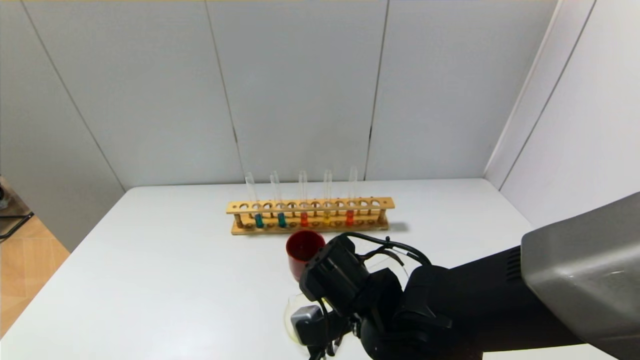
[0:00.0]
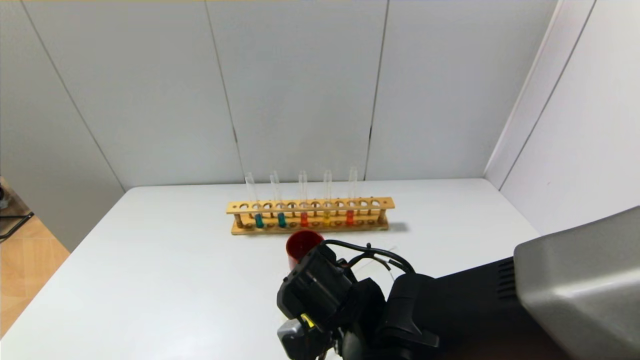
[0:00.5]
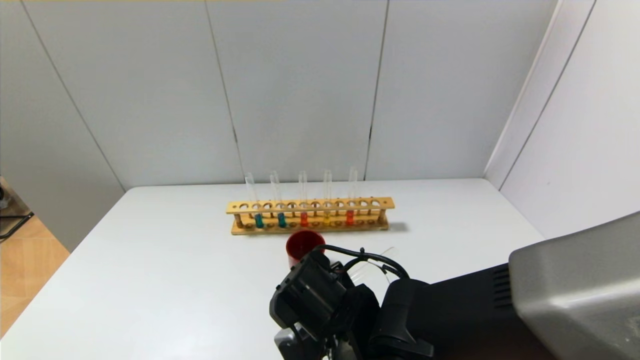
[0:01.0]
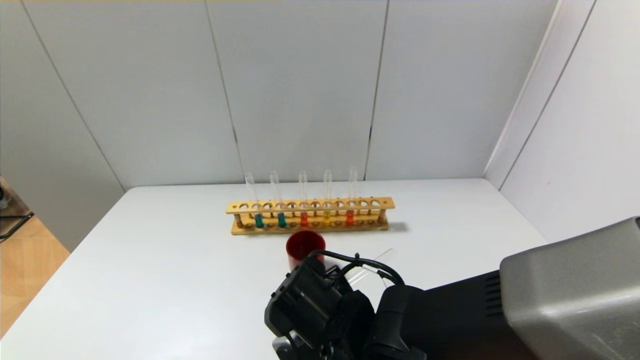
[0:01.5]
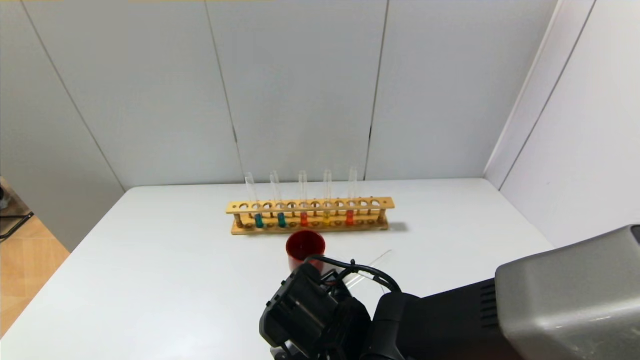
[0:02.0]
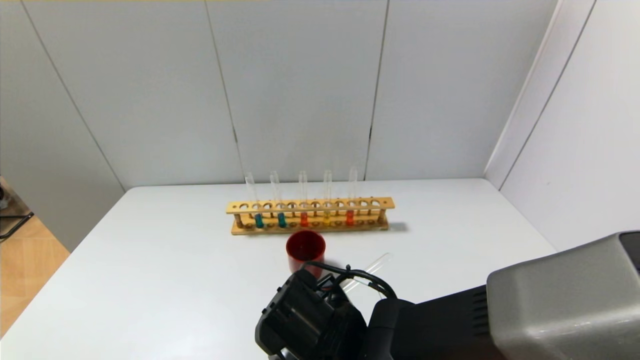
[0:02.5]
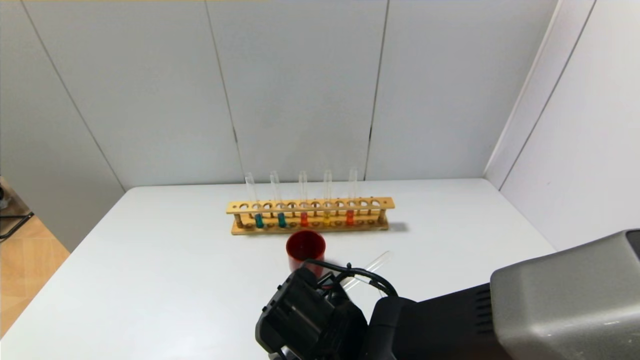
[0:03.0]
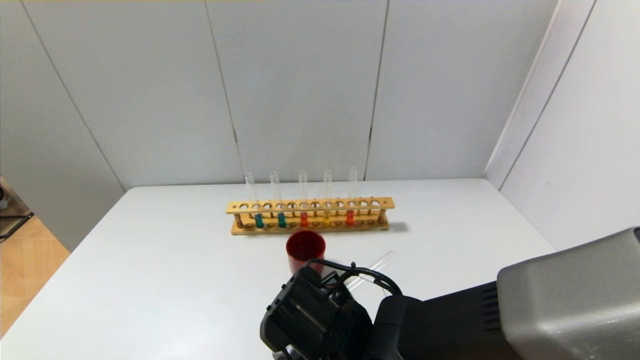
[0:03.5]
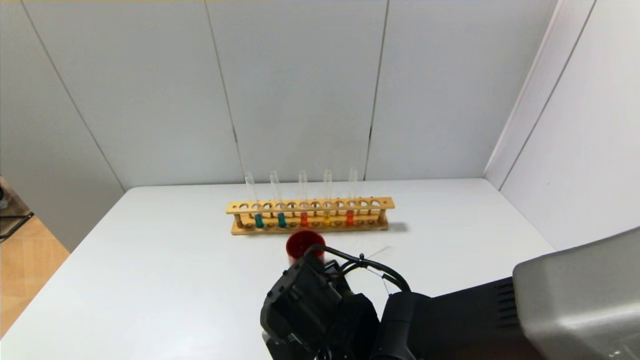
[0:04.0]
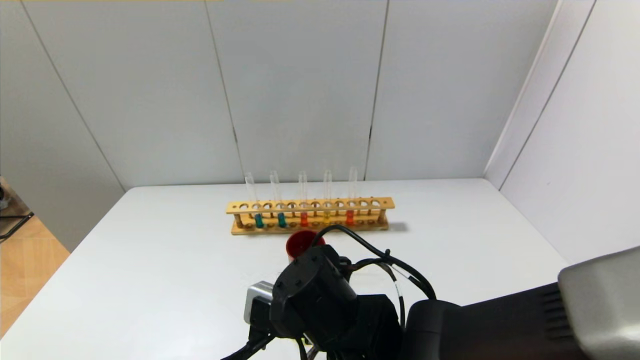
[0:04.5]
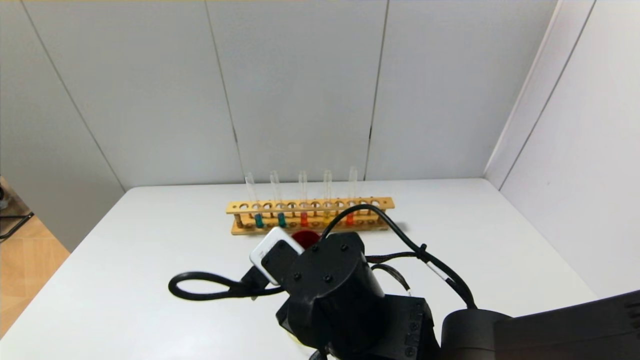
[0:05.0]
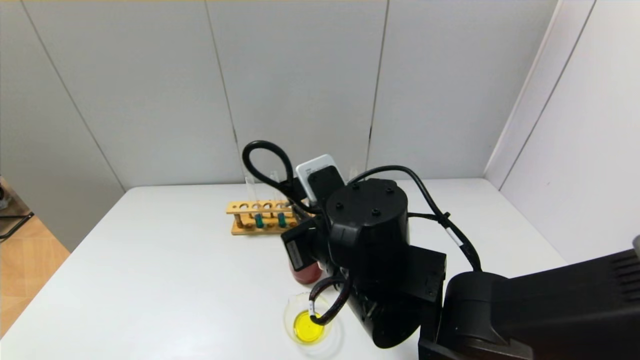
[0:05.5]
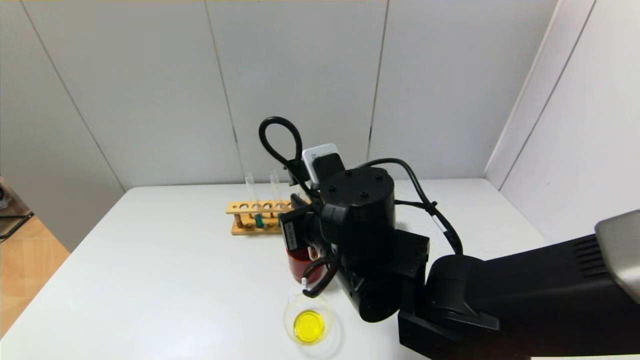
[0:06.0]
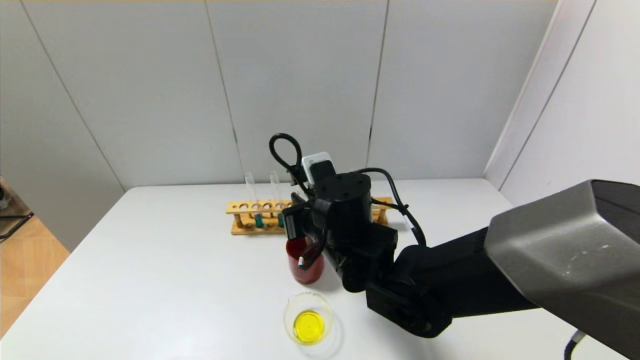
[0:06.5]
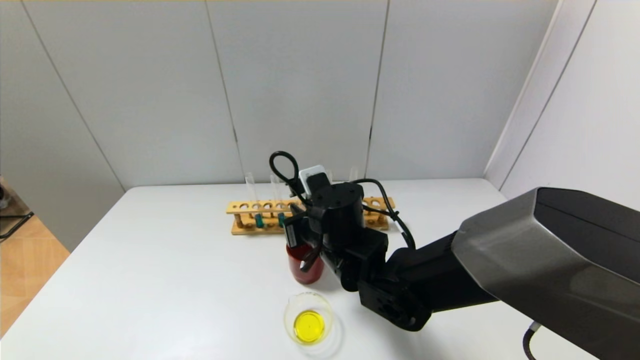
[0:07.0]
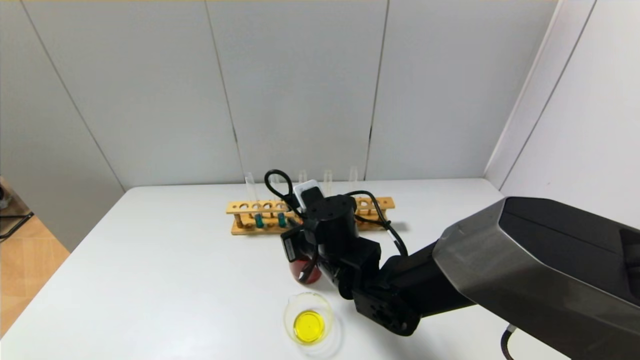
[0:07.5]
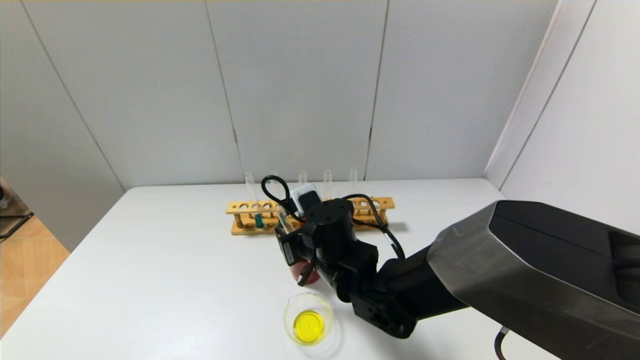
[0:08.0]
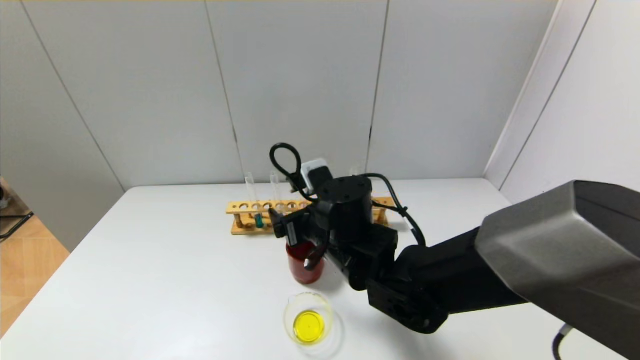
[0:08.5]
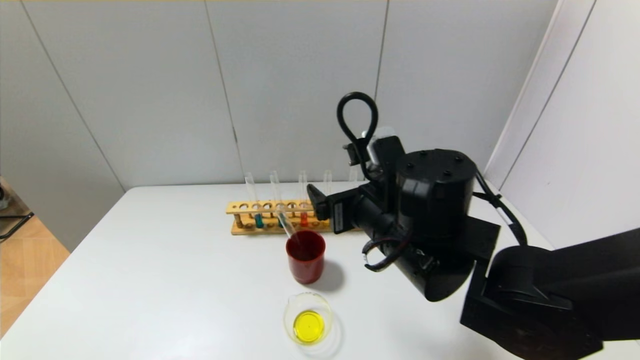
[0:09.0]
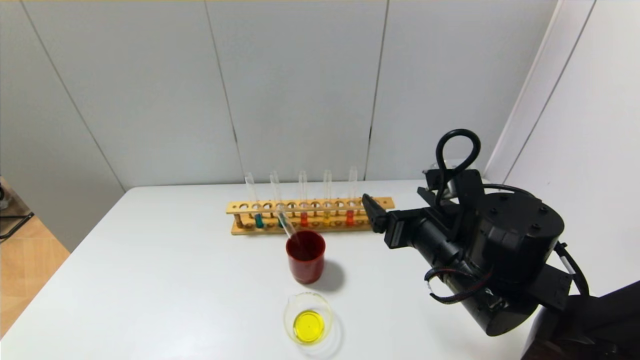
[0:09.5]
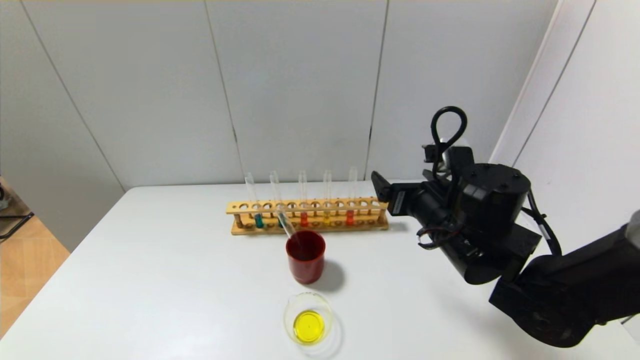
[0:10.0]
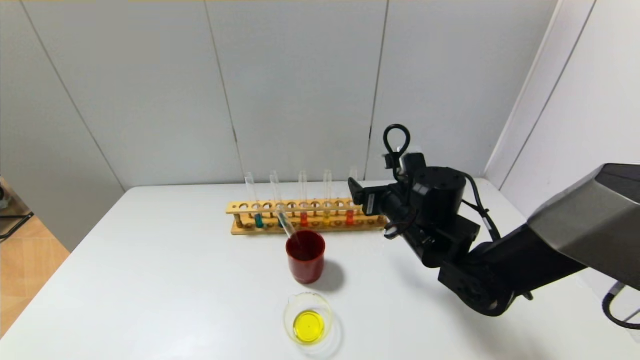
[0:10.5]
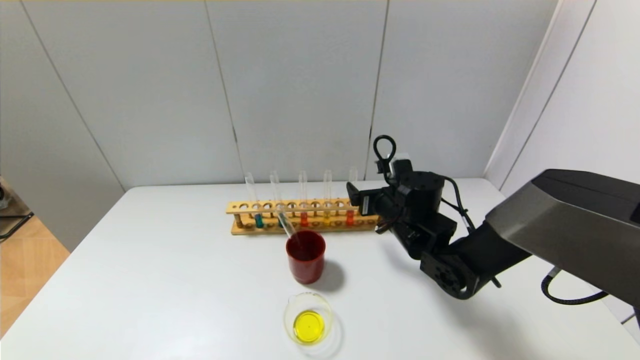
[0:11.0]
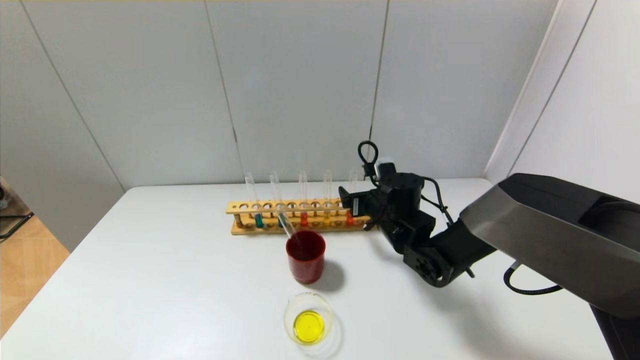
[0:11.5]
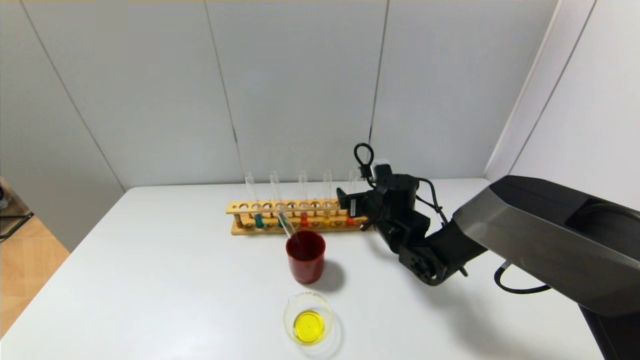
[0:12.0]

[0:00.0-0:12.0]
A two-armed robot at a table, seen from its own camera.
Step, 0:00.0 to 0:03.5: Pour the yellow reagent into the graduated cylinder with the right gripper.
Step, 0:04.0 to 0:08.0: Place the test tube into the brown cup with the right gripper.
0:00.0 to 0:04.0: The grippers move only a little.
0:04.0 to 0:06.0: The right gripper travels upward by some 10 cm.
0:06.0 to 0:08.0: The right gripper shifts some 10 cm downward and forward, and opens up.
0:08.0 to 0:10.0: The right gripper moves to the right and upward, some 15 cm.
0:10.0 to 0:12.0: The right gripper moves forward and downward, some 15 cm.

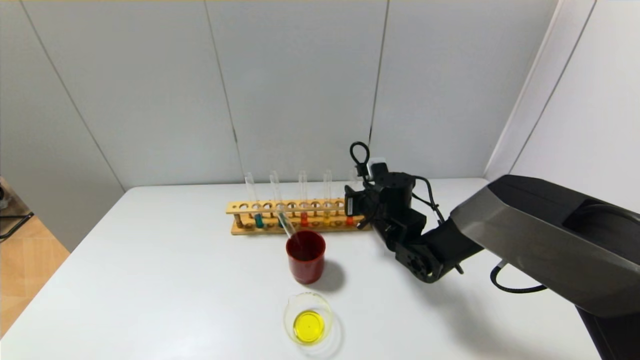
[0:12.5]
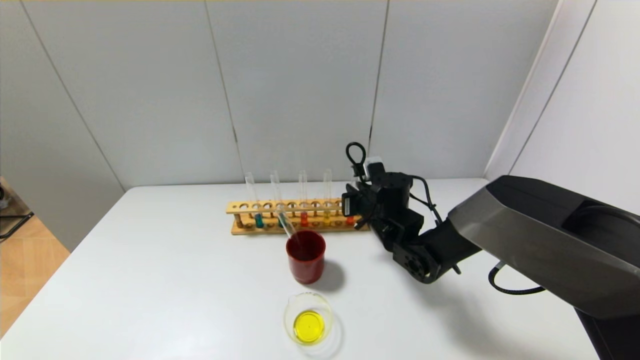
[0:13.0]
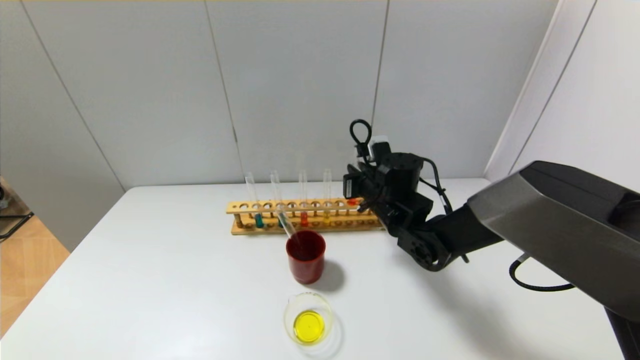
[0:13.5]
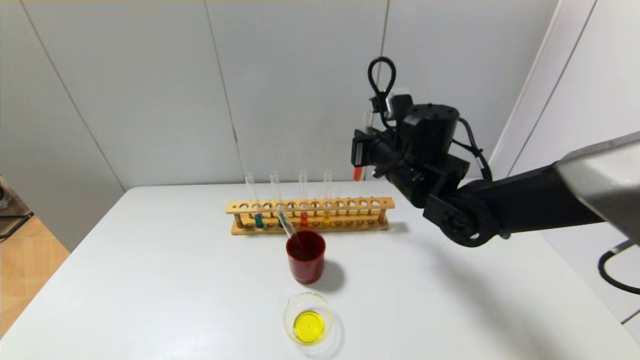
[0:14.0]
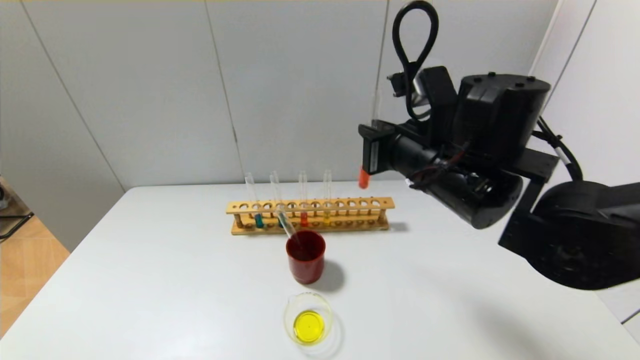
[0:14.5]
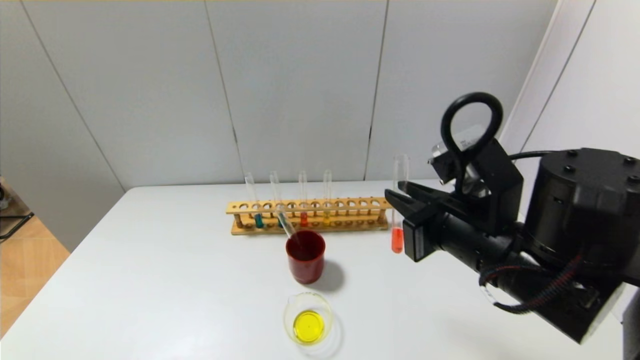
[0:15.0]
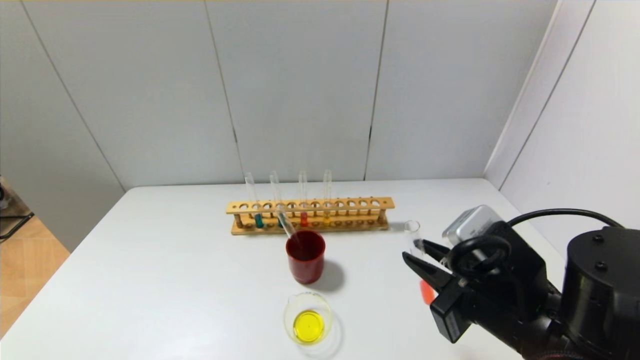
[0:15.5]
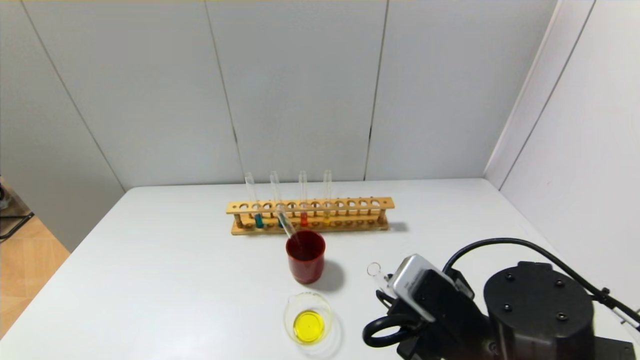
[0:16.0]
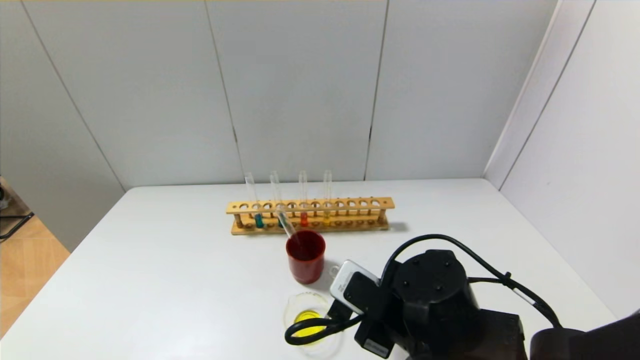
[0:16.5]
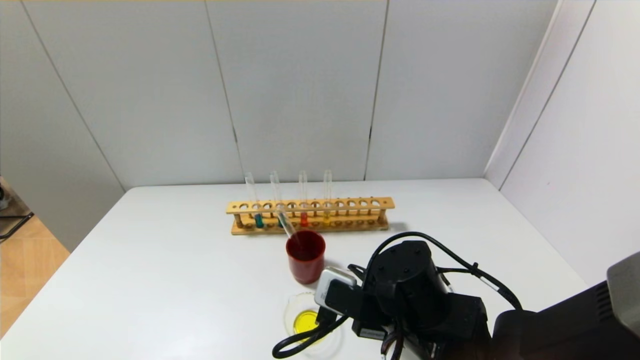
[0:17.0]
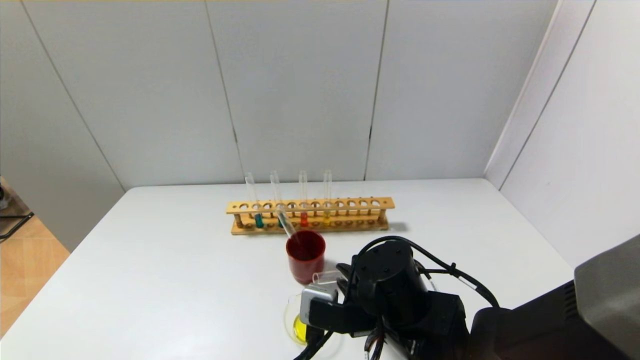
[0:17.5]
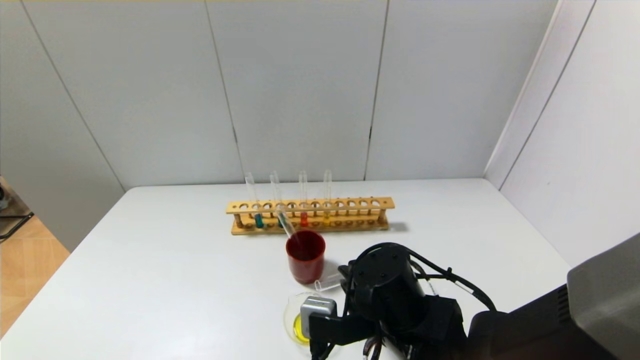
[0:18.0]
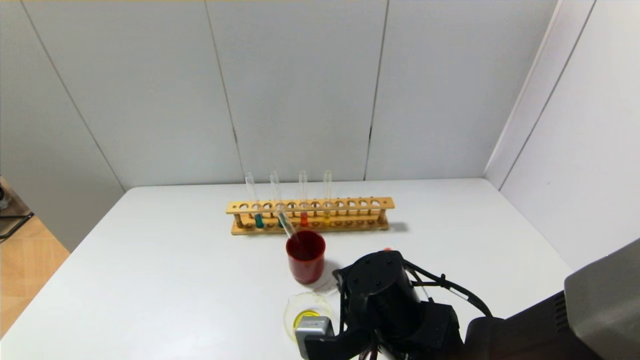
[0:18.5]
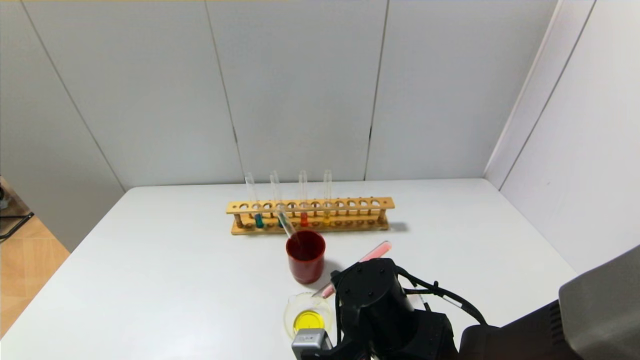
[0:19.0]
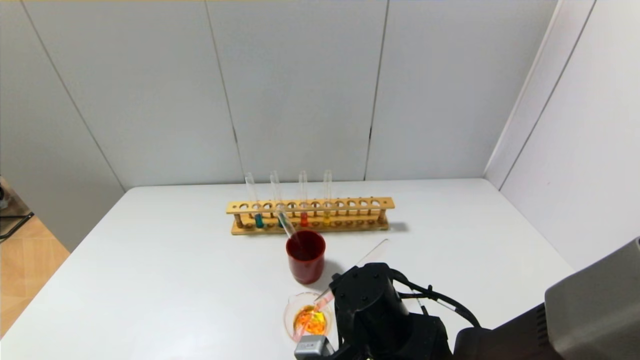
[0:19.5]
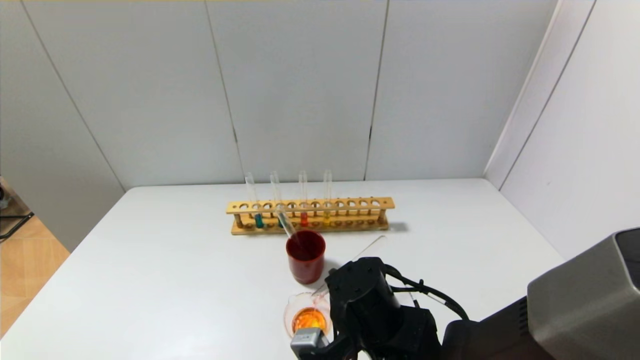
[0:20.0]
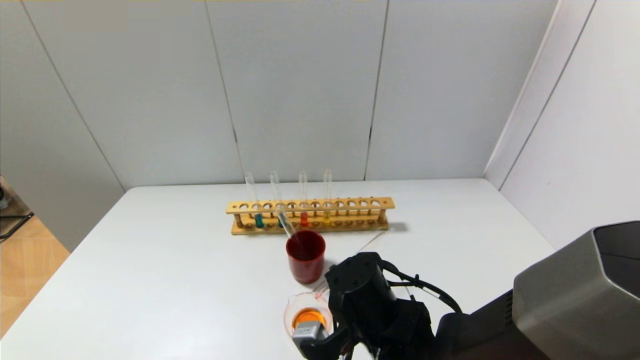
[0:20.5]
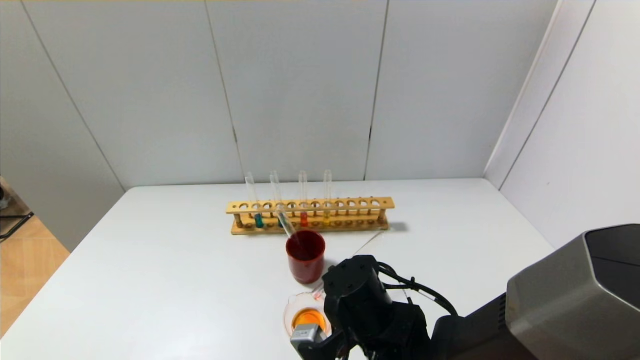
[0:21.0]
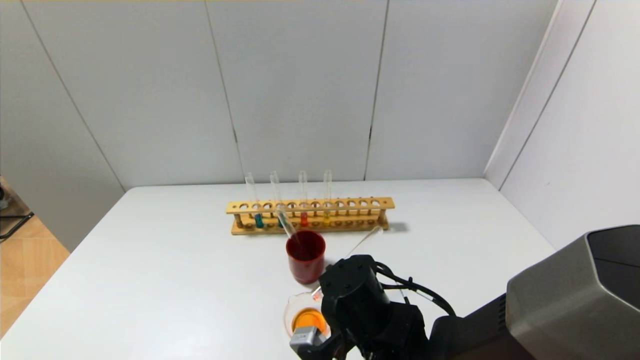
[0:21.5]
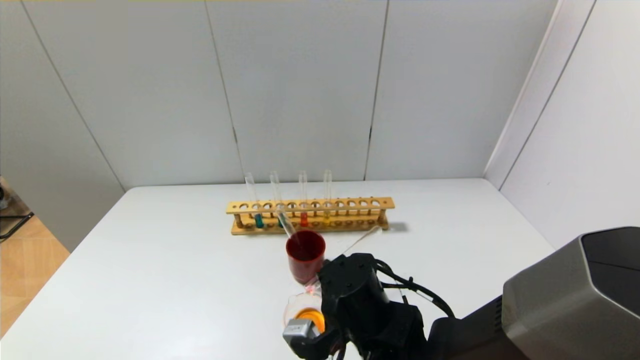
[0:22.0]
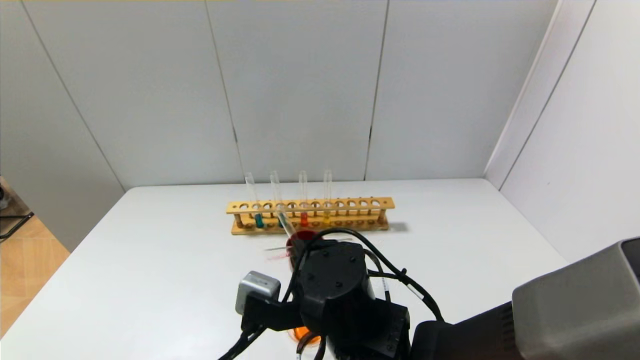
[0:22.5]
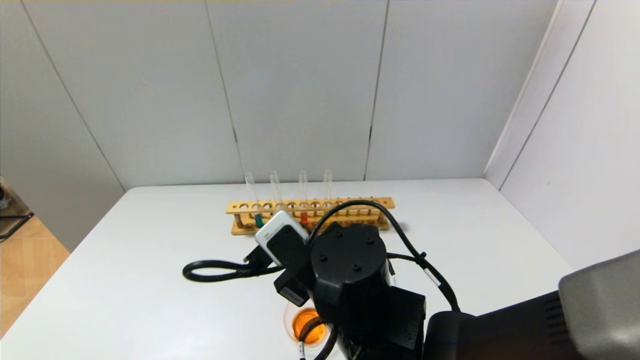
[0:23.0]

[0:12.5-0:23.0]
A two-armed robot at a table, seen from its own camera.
Step, 0:13.5 to 0:20.5: Pour the red reagent into the graduated cylinder with the right gripper.
0:12.5 to 0:14.5: The right gripper is displaced upward and backward by about 20 cm.
0:14.5 to 0:16.5: The right gripper shifts some 15 cm downward and backward.
0:19.0 to 0:21.0: The grippers make only small movements.
0:21.0 to 0:23.0: The right gripper shifts approximately 10 cm upward.
